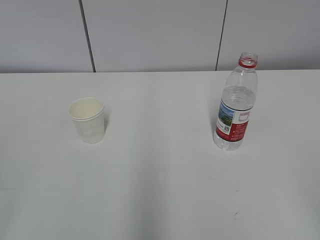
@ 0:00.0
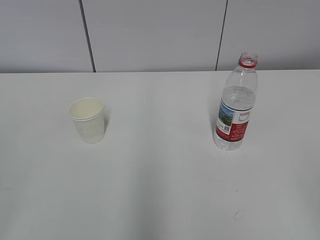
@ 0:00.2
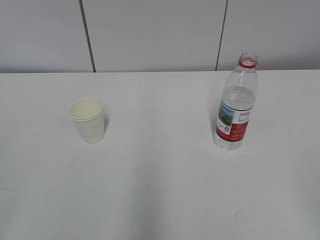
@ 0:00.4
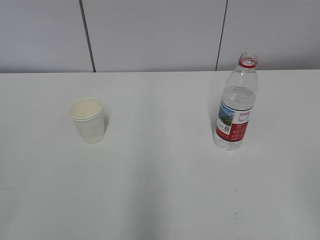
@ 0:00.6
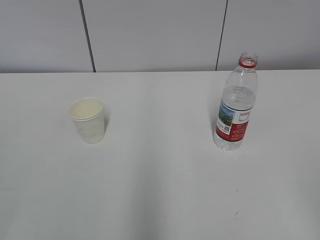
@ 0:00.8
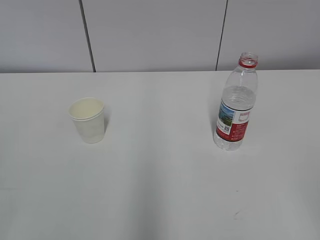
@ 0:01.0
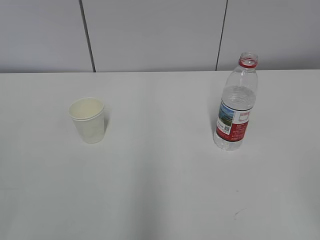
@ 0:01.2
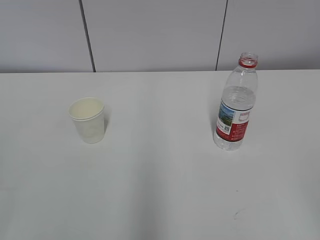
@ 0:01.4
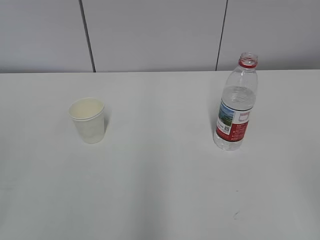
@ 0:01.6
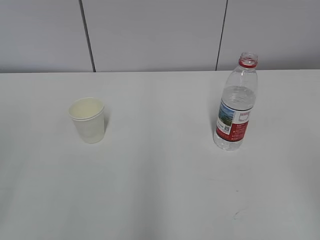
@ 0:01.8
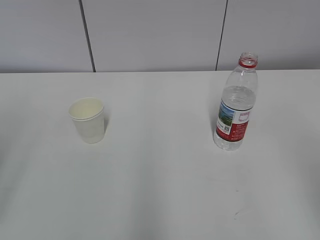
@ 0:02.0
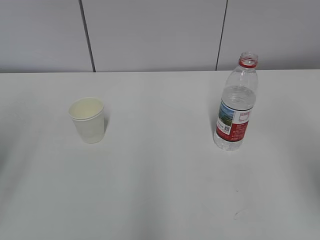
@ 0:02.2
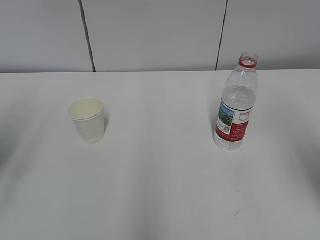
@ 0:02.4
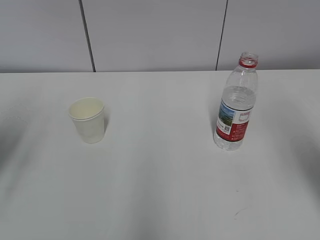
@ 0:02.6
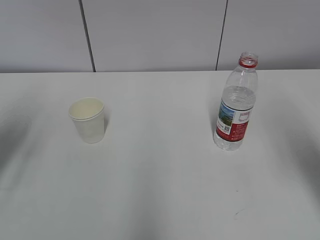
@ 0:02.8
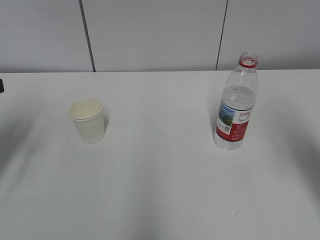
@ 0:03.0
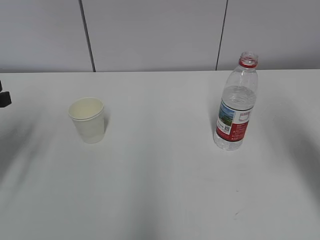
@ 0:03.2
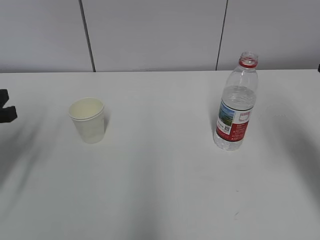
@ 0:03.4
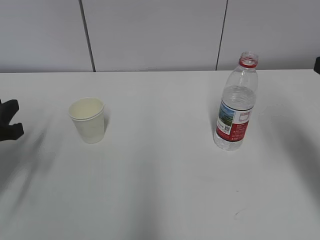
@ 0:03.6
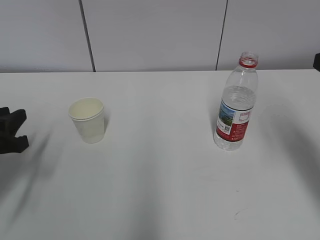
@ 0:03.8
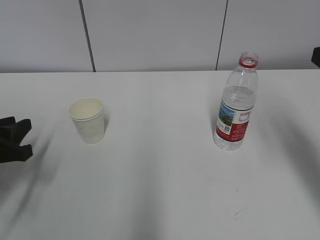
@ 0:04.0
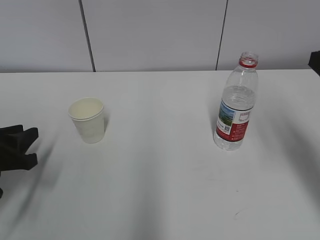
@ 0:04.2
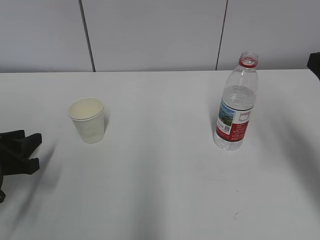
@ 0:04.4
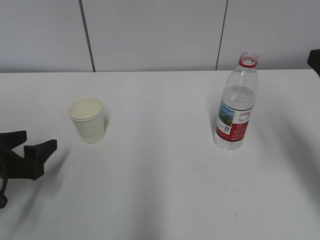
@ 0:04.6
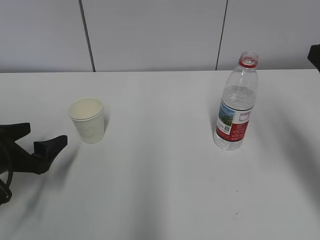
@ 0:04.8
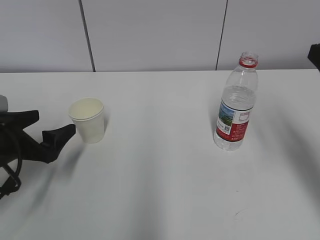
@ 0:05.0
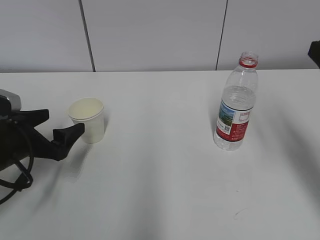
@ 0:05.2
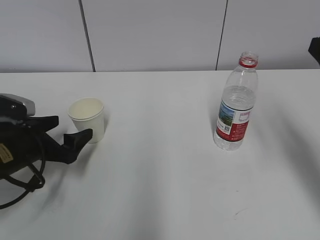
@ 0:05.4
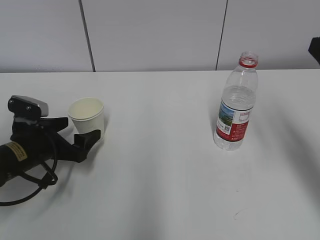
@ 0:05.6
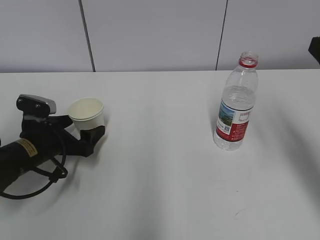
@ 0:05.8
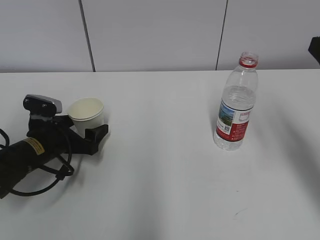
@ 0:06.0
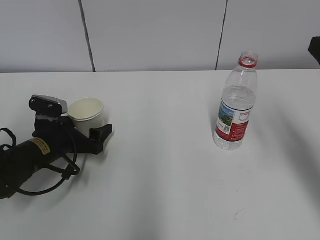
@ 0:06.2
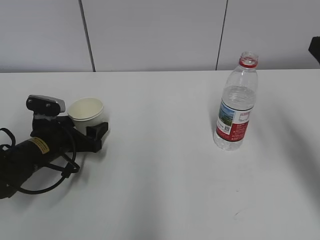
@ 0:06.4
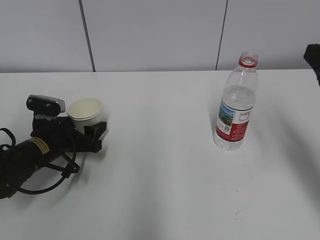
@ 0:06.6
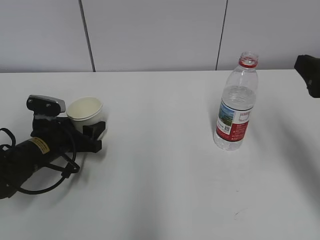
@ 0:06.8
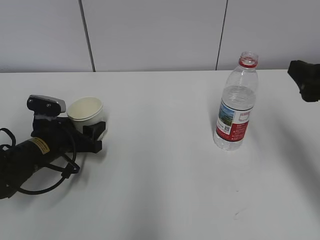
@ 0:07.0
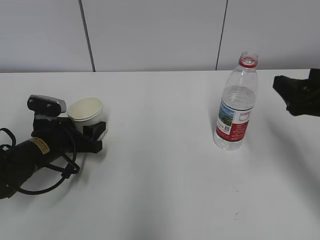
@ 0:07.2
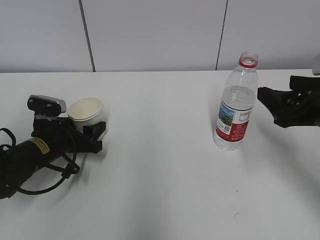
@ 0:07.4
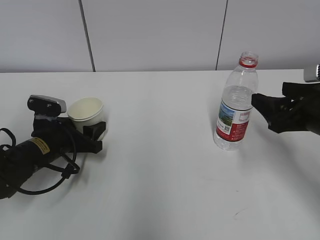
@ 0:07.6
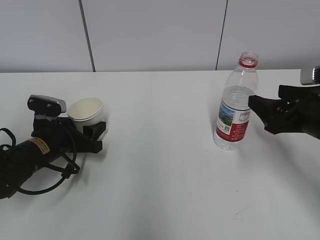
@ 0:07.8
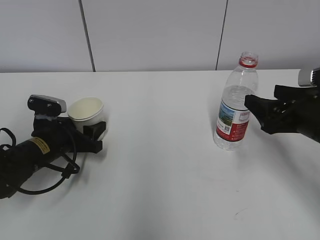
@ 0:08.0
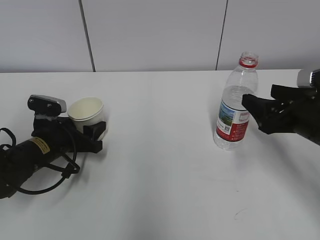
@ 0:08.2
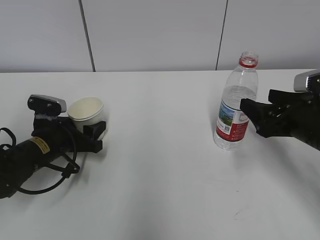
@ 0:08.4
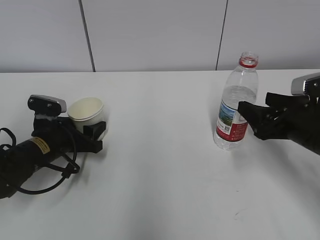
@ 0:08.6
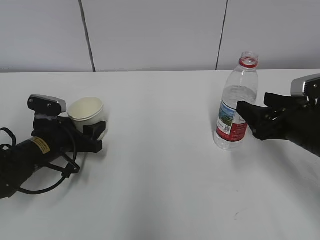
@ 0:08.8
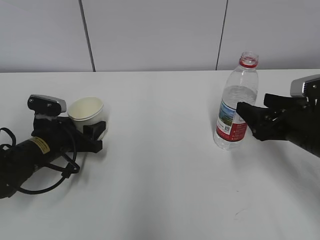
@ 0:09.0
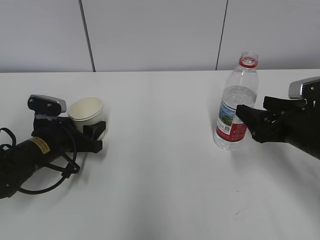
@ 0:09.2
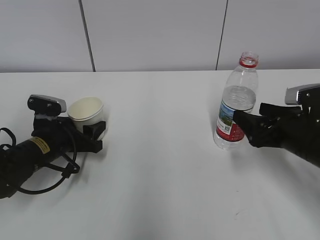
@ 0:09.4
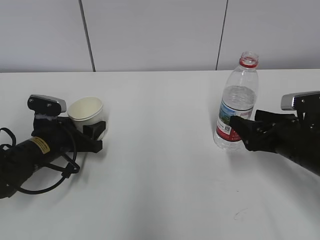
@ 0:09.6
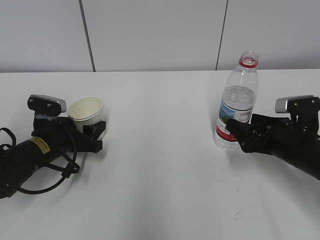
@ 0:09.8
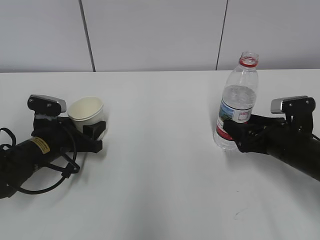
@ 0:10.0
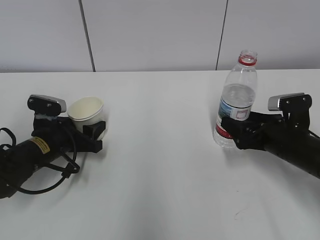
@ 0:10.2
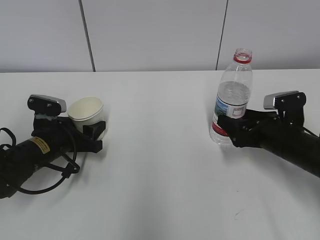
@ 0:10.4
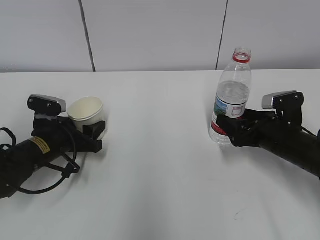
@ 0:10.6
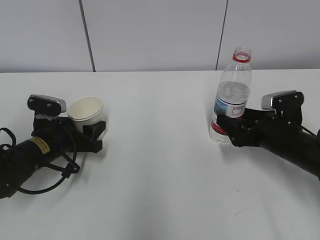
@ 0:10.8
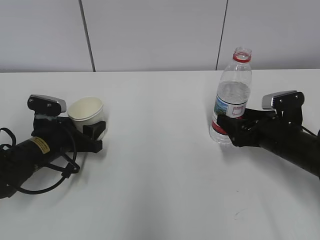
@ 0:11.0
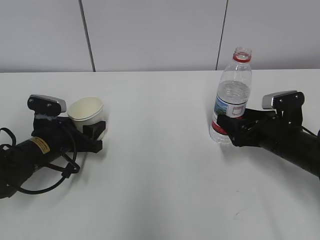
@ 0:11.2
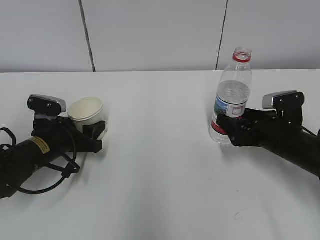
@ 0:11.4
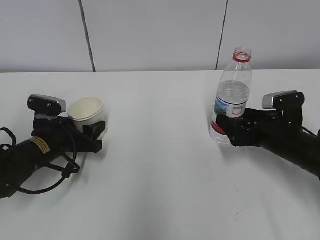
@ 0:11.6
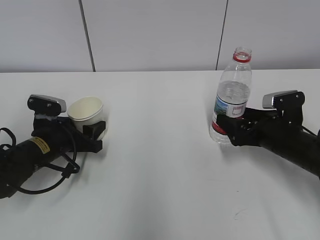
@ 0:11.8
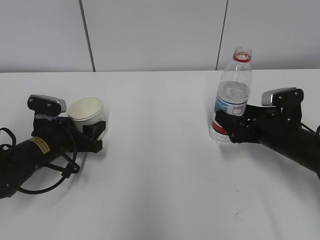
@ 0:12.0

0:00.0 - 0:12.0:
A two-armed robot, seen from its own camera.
Step, 0:00.0 - 0:10.8: Grab the paper cup with the left hand.
0:01.6 - 0:03.0: Both grippers move forward, about 25 cm.
0:03.0 - 0:04.4: The left gripper travels downward by some 10 cm.
0:04.4 - 0:06.0: The left gripper heads forward and to the right, covering approximately 10 cm, and opens its fingers.
0:06.0 - 0:07.6: The right gripper moves downward, about 10 cm, while the left gripper closes.
0:07.6 - 0:09.0: The grippers make only small movements.
0:09.0 - 0:10.4: The right gripper moves downward, roughly 5 cm.
0:10.4 - 0:12.0: Both grippers stay about where they are.

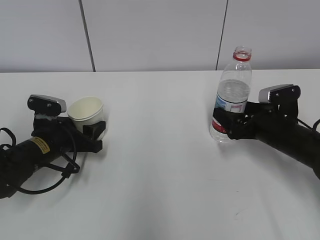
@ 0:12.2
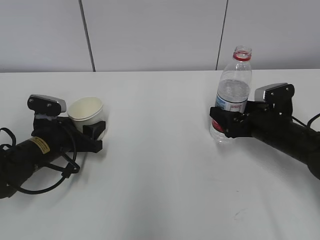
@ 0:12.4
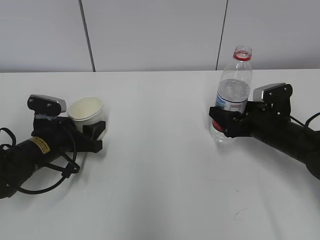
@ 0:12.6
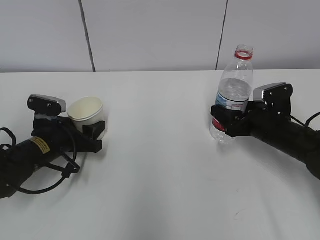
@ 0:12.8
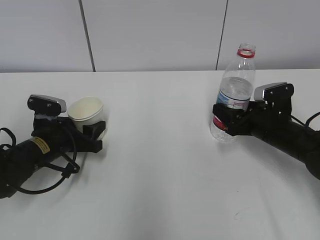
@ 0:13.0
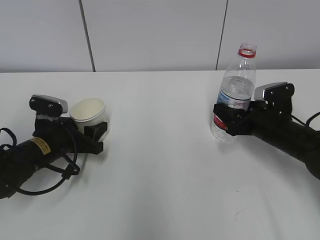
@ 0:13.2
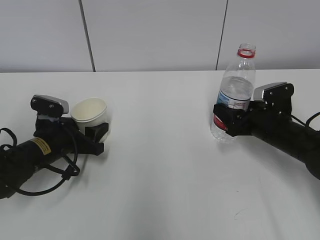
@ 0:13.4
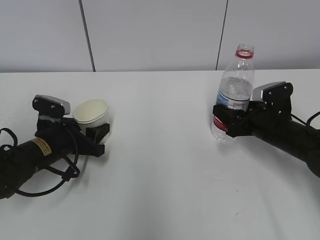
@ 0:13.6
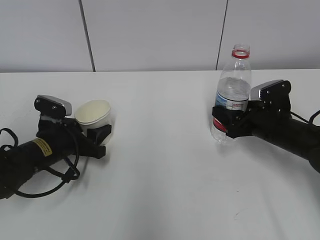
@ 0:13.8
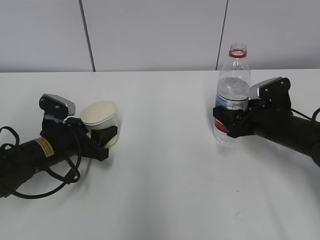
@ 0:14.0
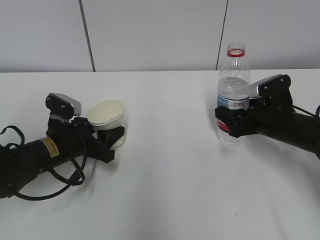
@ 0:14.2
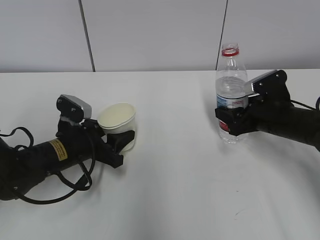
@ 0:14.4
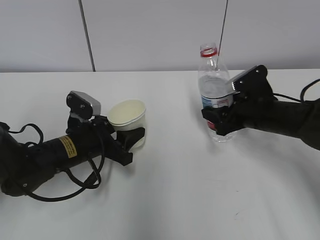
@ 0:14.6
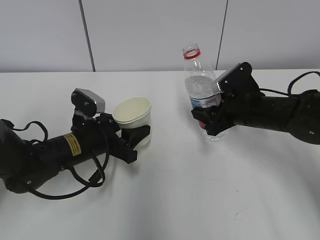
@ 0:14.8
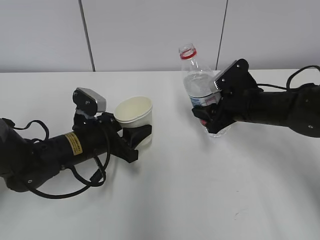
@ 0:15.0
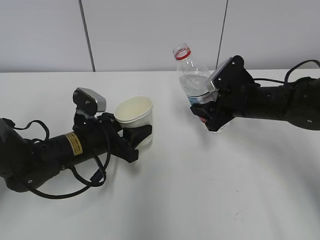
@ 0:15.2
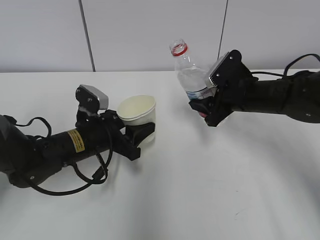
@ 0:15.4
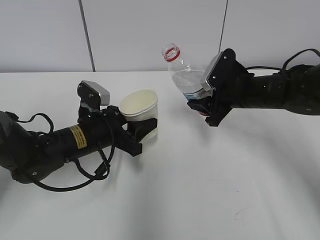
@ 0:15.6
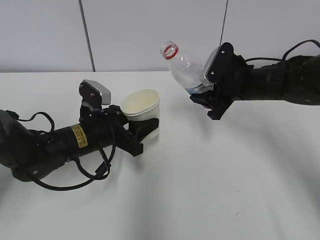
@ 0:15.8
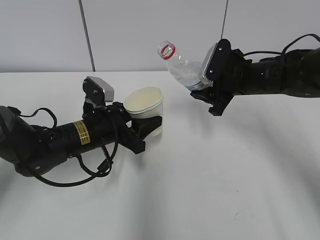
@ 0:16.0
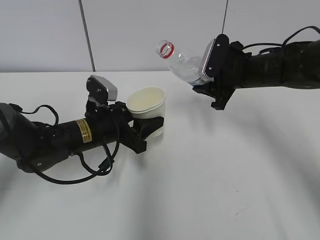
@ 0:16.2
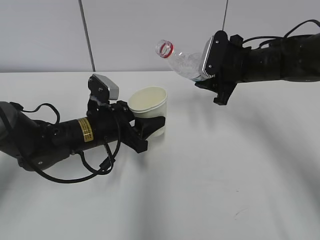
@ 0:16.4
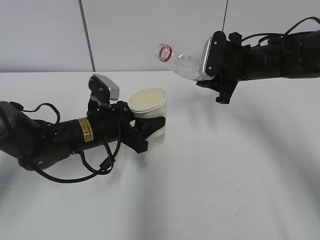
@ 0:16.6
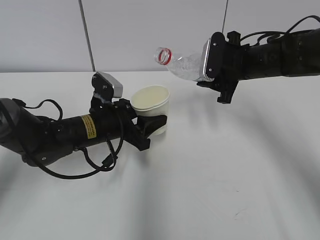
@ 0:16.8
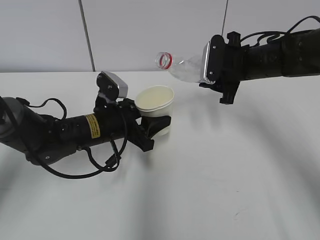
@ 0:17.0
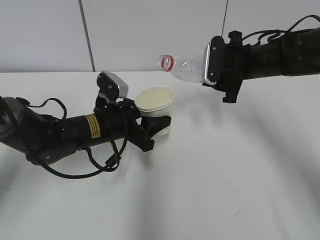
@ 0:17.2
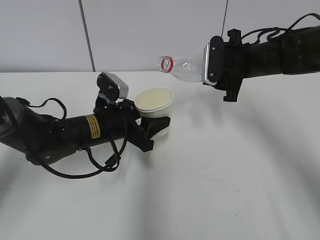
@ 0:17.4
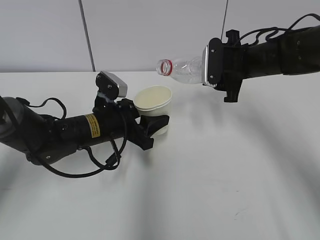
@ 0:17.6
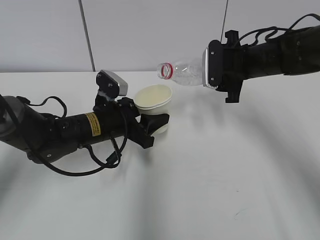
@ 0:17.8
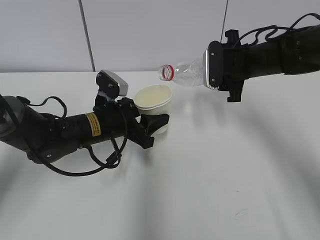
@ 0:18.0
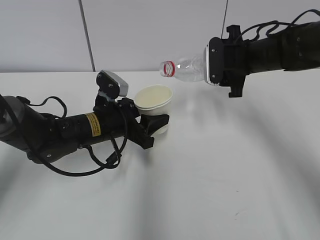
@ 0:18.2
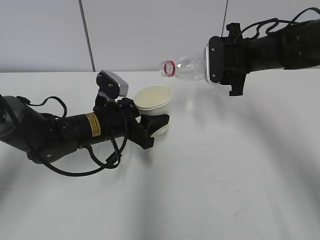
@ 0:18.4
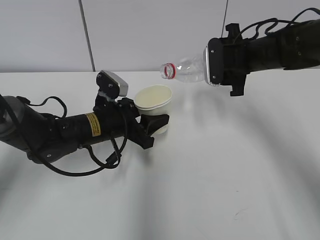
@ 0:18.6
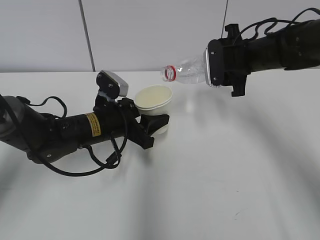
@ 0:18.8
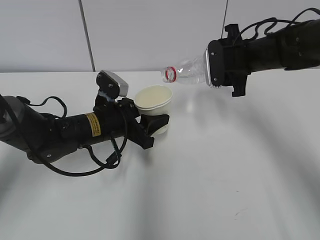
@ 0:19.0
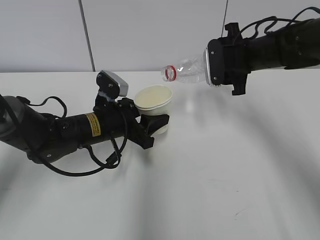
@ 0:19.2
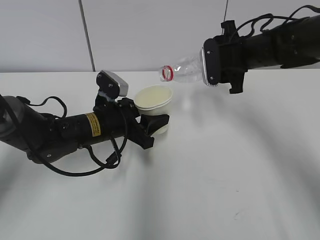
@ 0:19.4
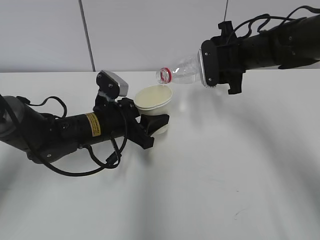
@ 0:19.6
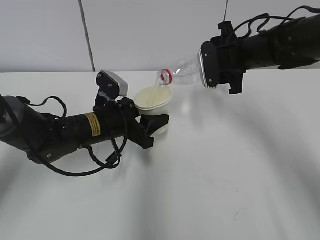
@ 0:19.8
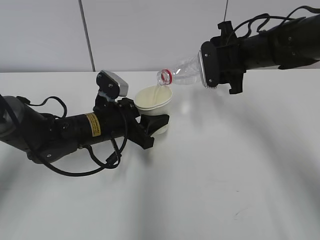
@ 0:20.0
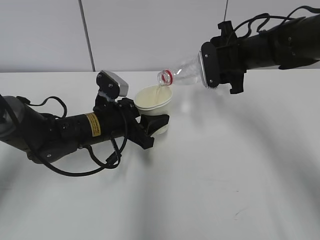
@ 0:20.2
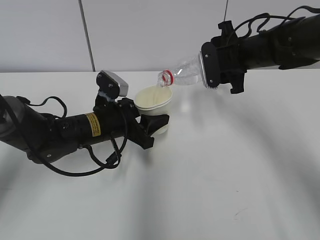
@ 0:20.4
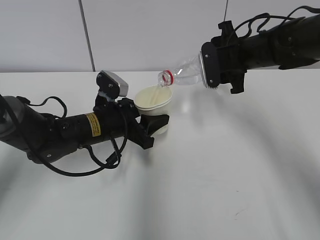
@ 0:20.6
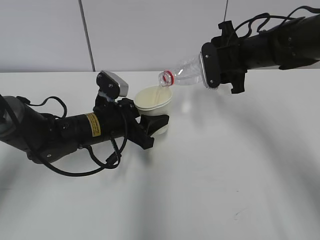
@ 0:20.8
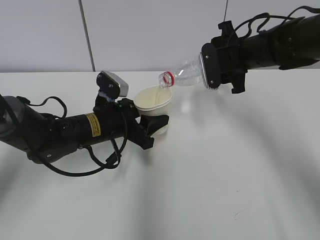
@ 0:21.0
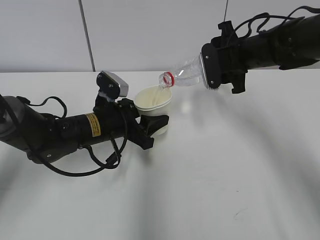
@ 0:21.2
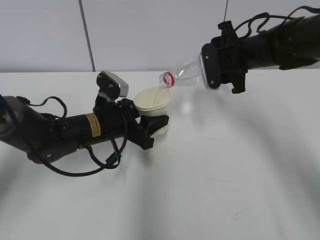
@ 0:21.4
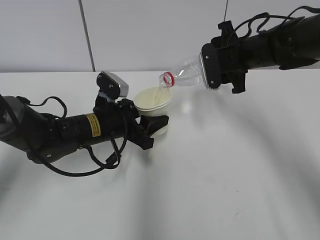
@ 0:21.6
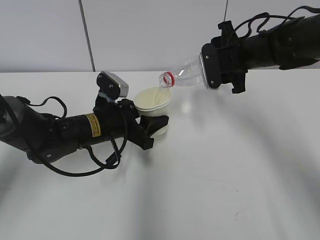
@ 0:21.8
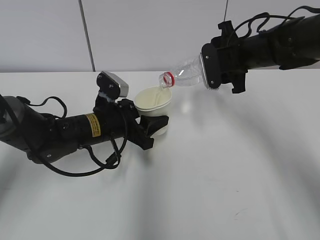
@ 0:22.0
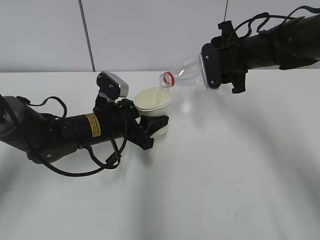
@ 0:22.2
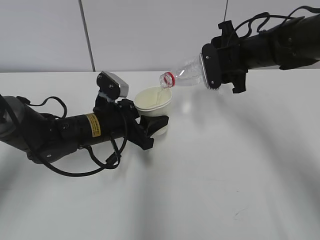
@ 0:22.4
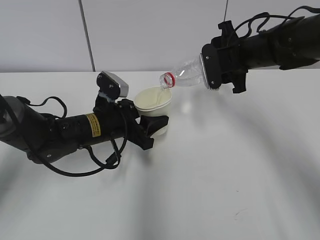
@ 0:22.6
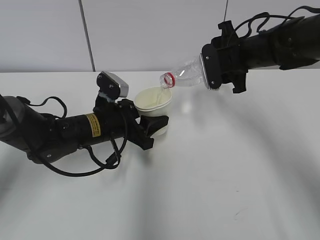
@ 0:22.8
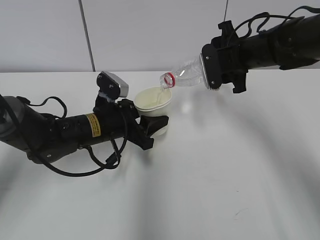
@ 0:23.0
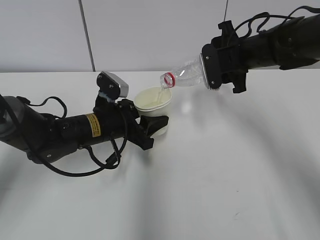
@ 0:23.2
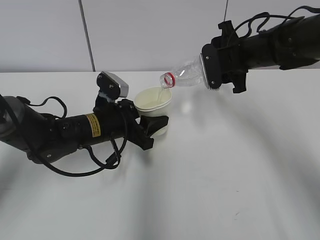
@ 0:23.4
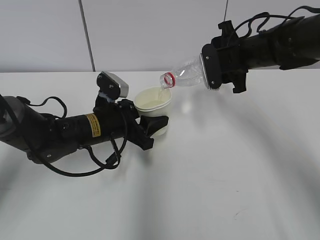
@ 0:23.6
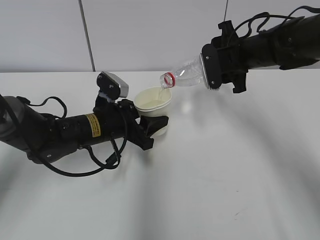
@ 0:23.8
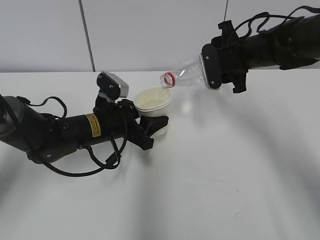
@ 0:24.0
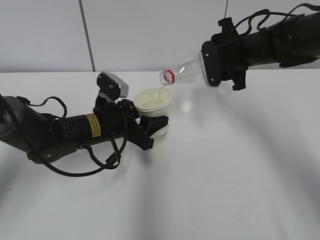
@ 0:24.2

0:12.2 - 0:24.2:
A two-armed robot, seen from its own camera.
Step, 0:12.2 - 0:16.2: Lift the paper cup with the left hand.
Step, 0:16.4 - 0:20.6: Fill water with the left hand.
Step, 0:16.4 - 0:20.6: Pour water with the right hand.
0:12.2 - 0:13.8: The right gripper closes up.
0:13.8 - 0:15.2: The left gripper heads to the right, covering about 5 cm; the right gripper is displaced upward by about 5 cm.
0:15.2 - 0:16.6: The right gripper moves upward, approximately 5 cm.
0:16.6 - 0:18.2: The grippers make only small movements.
0:18.2 - 0:19.8: The grippers make only small movements.
0:19.8 - 0:24.2: The two grippers keep their place.
